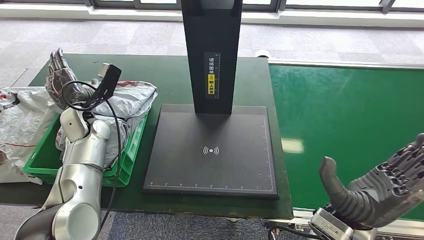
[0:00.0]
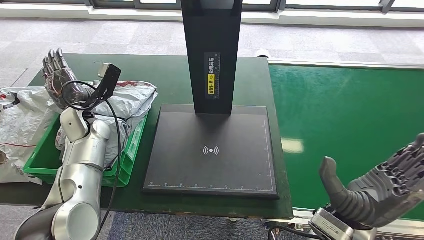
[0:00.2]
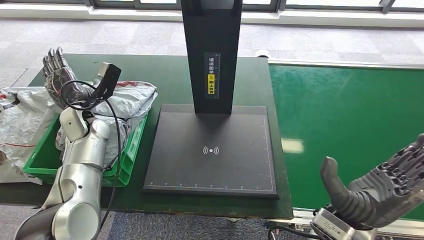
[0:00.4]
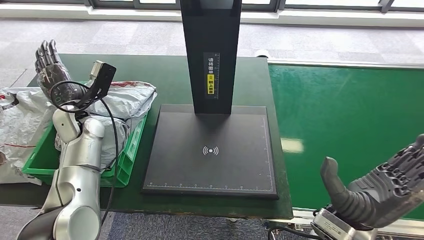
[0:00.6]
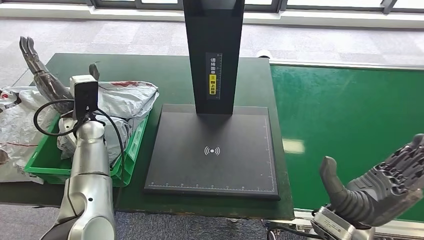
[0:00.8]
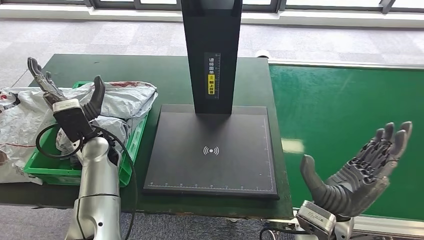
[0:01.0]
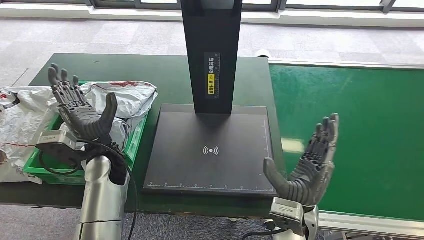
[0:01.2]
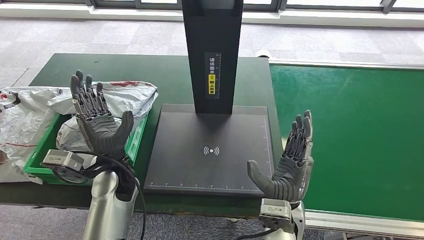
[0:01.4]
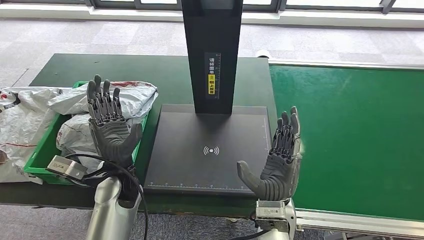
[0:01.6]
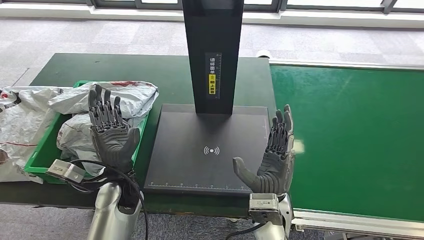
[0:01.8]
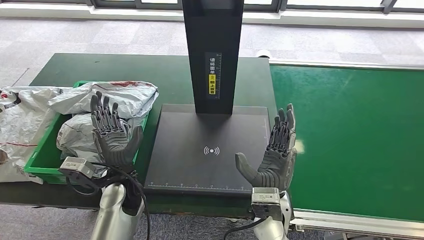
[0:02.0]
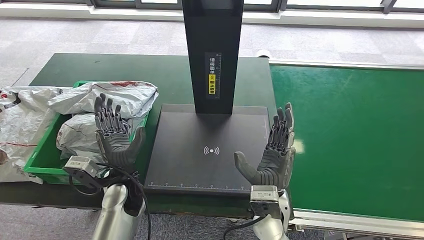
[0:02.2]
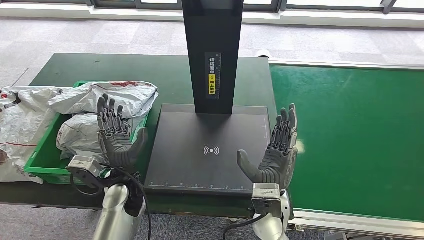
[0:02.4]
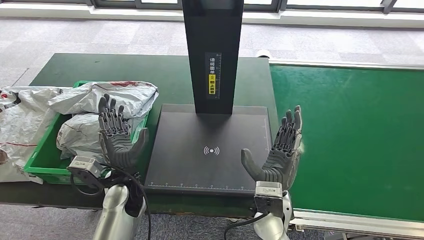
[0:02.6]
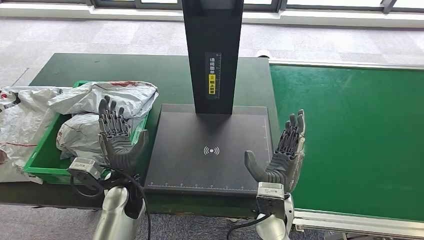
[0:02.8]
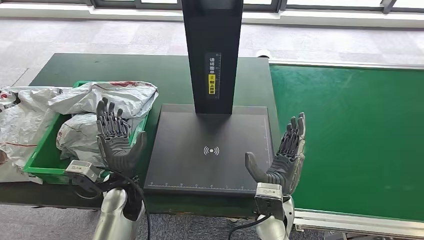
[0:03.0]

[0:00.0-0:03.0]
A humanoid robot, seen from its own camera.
Step, 0:00.0 to 0:02.8: Place the parcel into the delivery box.
0:00.0 to 0:01.6: The left hand travels backward and to the right by approximately 20 cm, while the right hand heads to the left, covering roughly 10 cm.
0:01.6 to 0:03.0: There are only small adjustments of the hands.

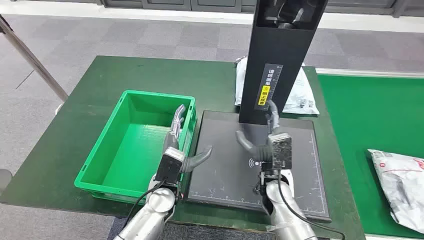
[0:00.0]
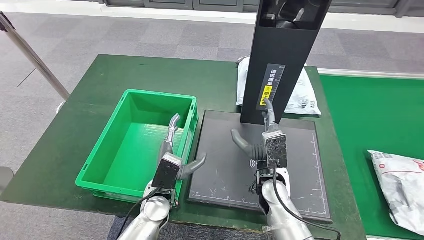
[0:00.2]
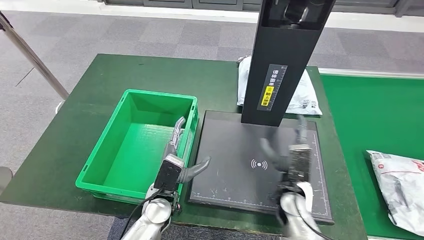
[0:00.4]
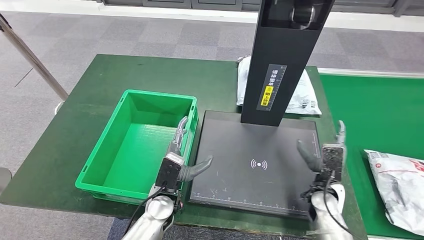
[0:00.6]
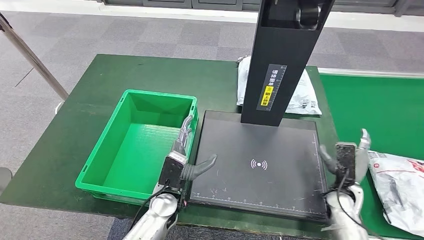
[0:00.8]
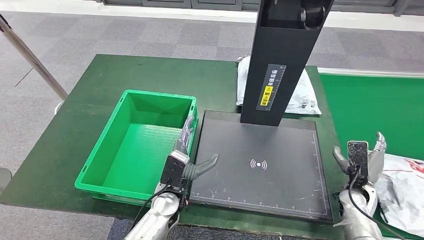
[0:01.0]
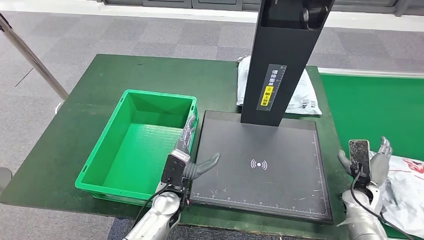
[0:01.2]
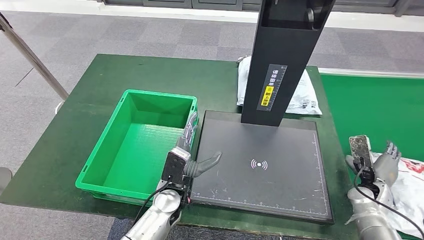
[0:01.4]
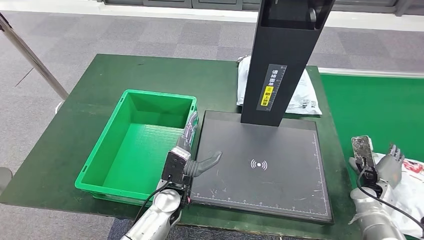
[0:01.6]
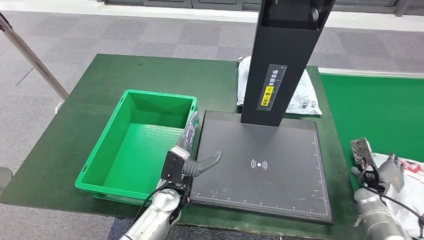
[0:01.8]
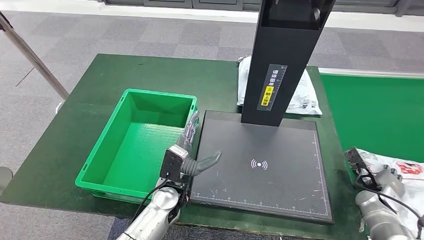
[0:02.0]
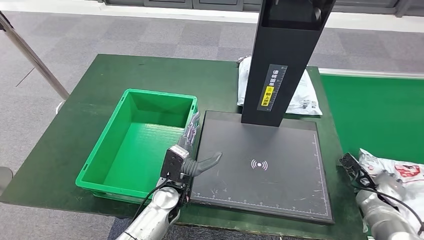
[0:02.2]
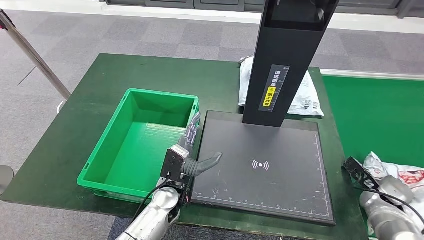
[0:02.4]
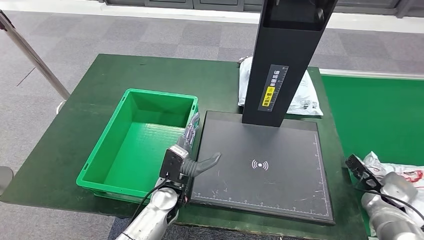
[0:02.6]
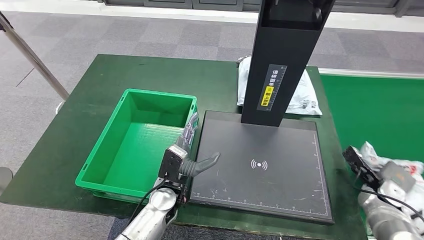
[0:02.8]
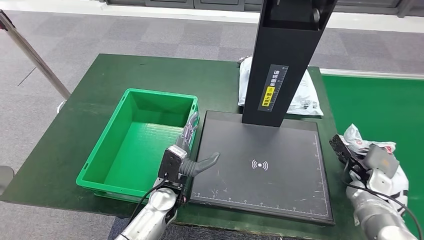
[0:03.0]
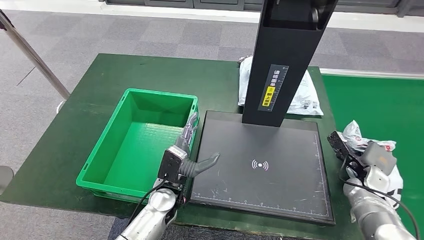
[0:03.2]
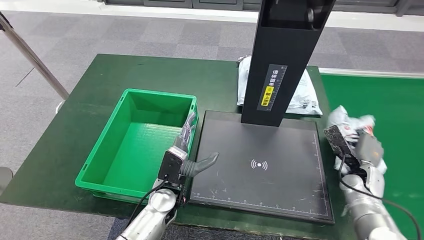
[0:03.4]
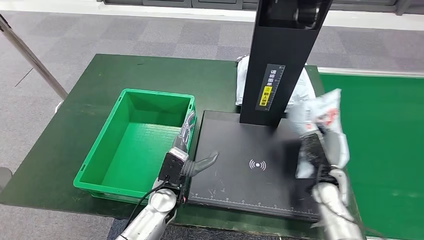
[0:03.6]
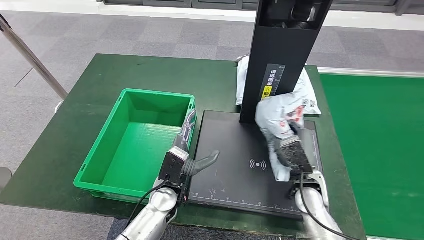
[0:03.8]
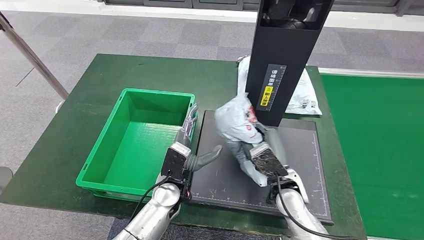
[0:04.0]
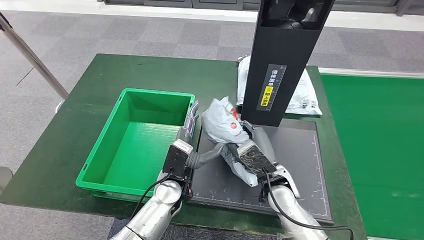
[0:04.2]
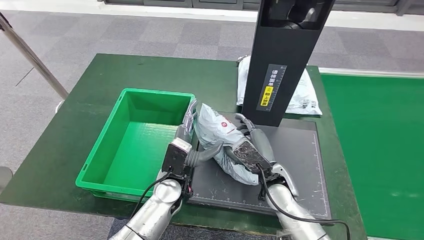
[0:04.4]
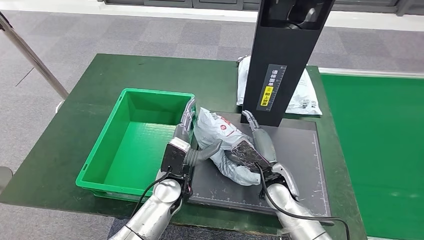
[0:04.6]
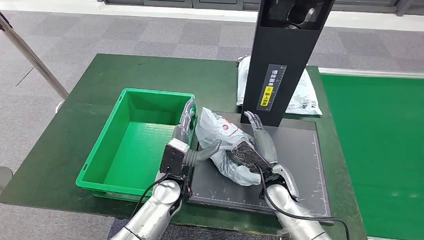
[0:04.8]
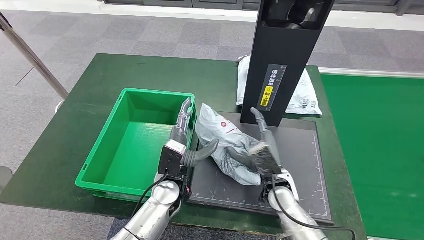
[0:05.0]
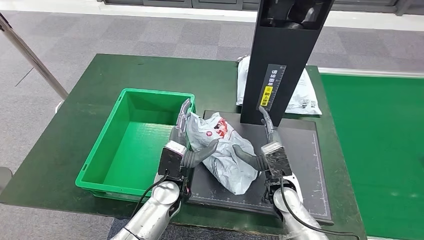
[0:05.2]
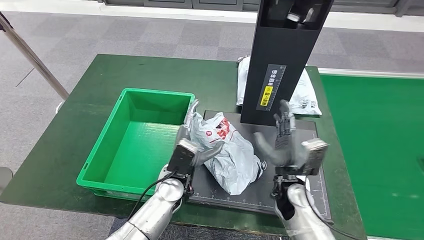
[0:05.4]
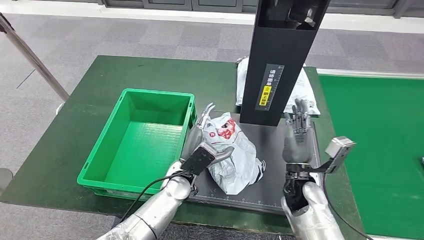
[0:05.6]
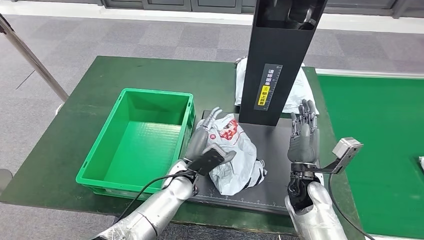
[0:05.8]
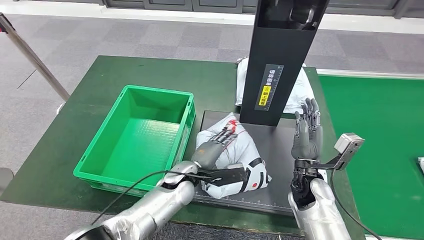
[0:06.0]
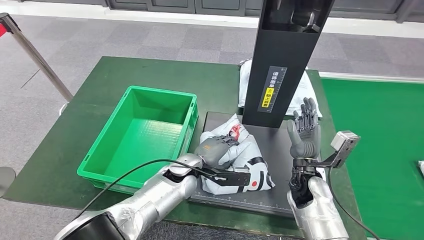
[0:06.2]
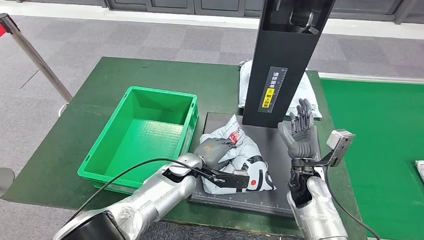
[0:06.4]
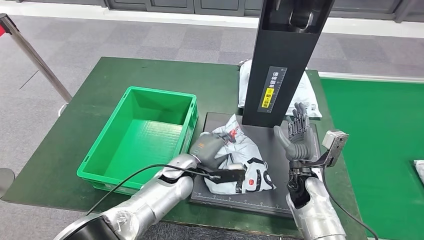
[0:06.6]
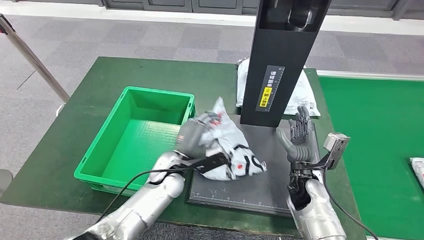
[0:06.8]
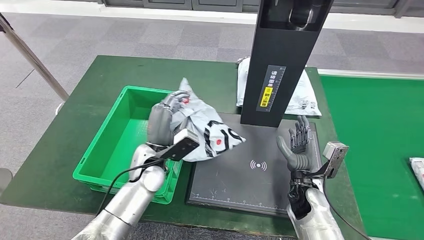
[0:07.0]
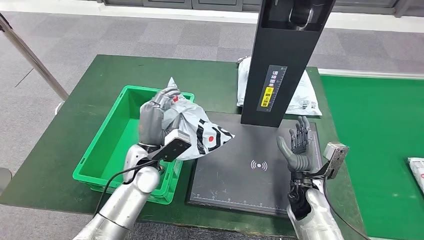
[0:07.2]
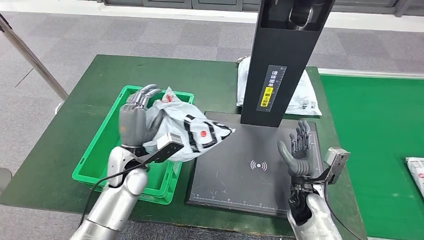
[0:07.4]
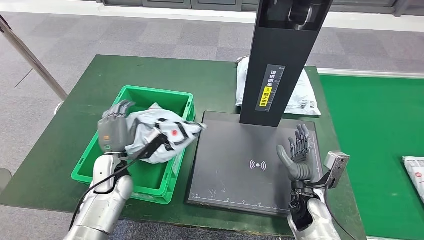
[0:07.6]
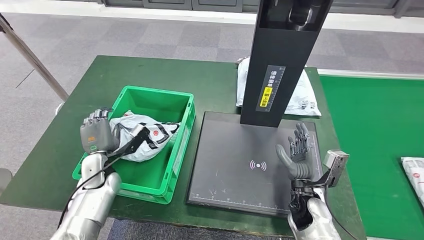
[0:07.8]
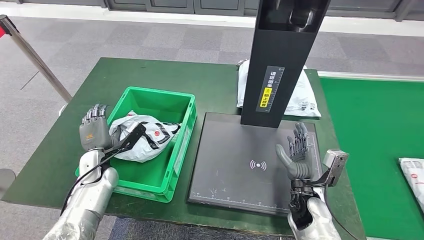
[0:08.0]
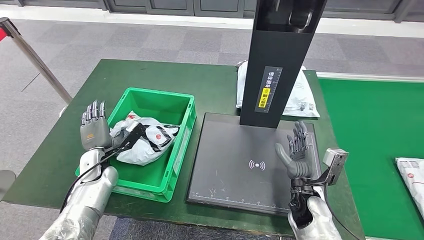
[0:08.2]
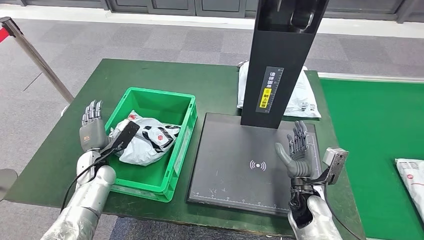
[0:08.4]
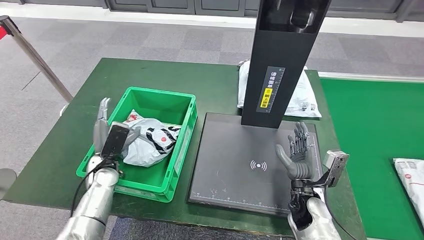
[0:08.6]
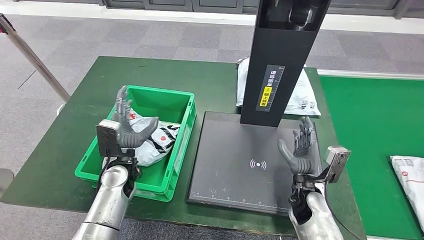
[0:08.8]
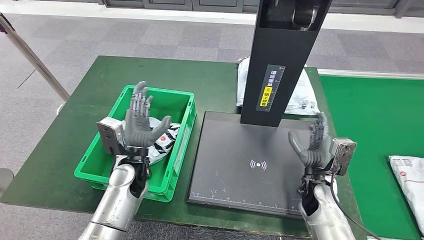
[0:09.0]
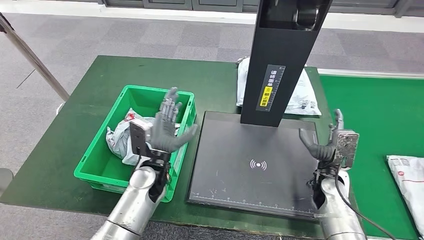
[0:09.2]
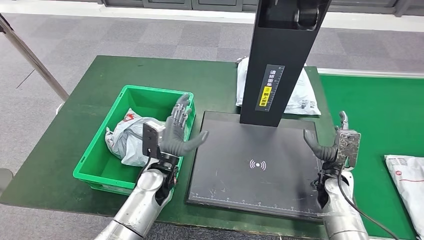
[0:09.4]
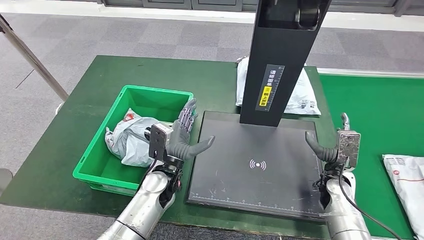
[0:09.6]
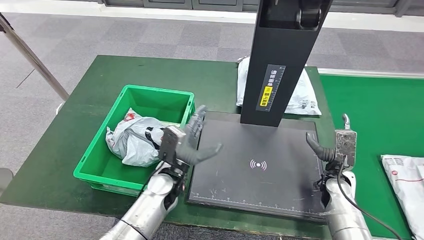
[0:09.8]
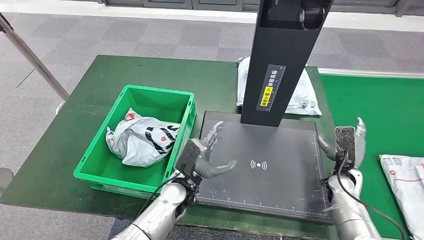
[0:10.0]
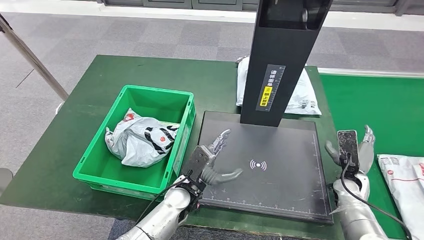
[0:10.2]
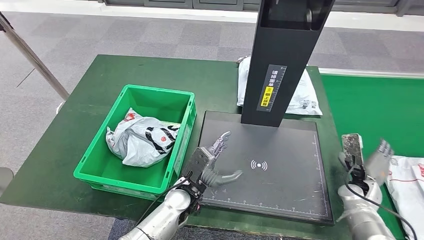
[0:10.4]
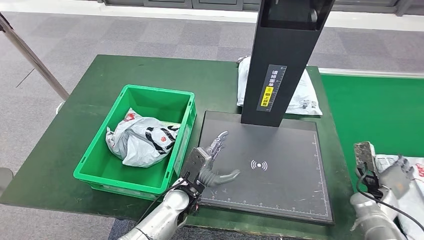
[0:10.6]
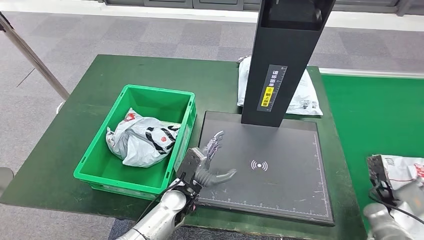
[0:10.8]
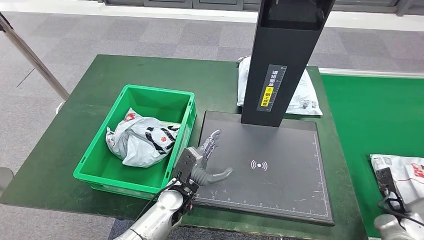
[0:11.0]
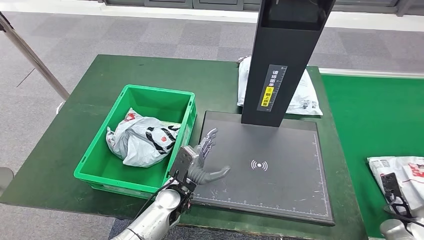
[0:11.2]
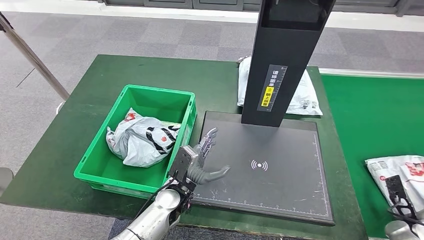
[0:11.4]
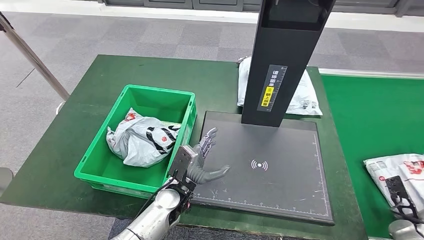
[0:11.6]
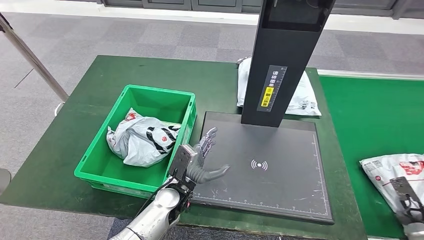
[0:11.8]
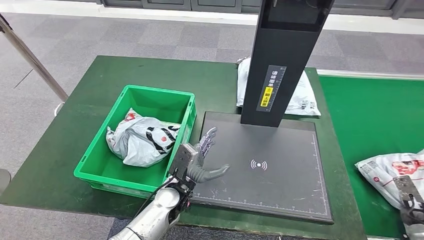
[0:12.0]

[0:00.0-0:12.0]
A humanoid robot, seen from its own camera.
Step, 0:00.0 to 0:03.0: Take the parcel off the conveyor belt.
Step, 0:03.2 to 0:05.2: Place the parcel onto the inbound machine.
Step, 0:05.4 to 0:07.0: Pick up the parcel from the inbound machine.
Step, 0:07.2 to 0:08.4: Put the parcel inside the courier box.
0:10.4 to 0:12.0: The right hand is displaced to the right and backward by approximately 15 cm.

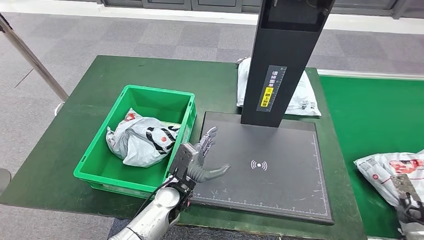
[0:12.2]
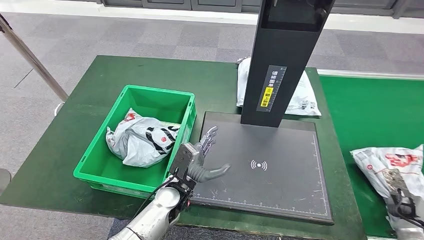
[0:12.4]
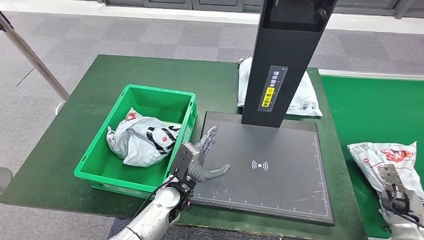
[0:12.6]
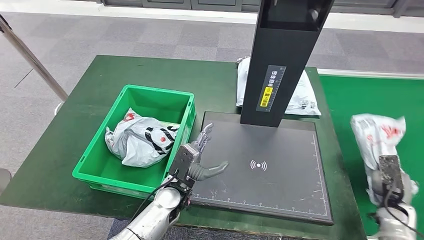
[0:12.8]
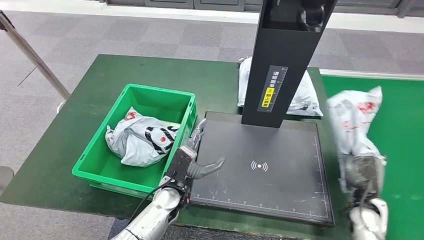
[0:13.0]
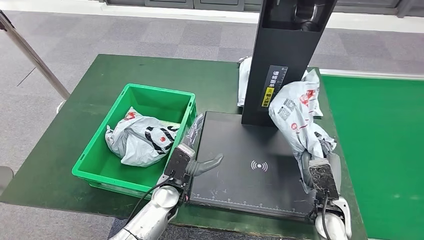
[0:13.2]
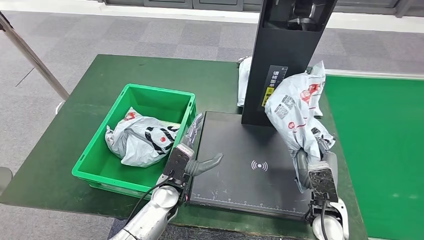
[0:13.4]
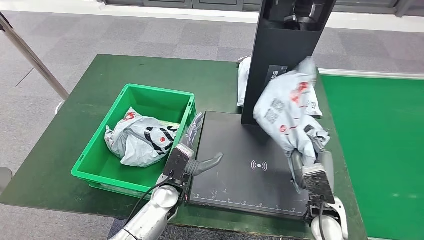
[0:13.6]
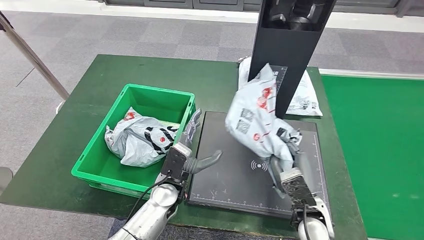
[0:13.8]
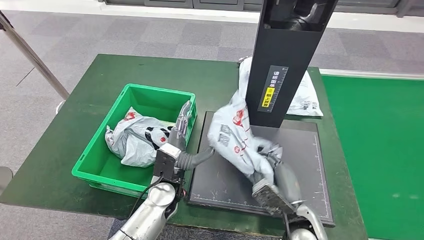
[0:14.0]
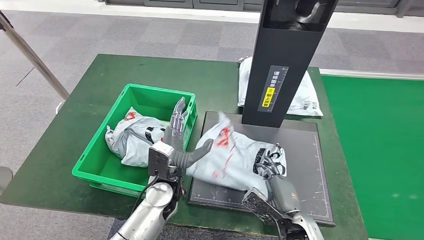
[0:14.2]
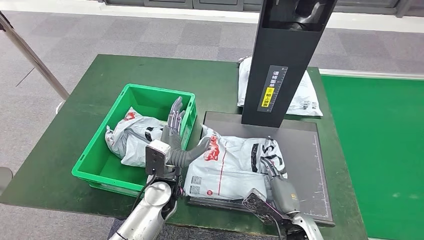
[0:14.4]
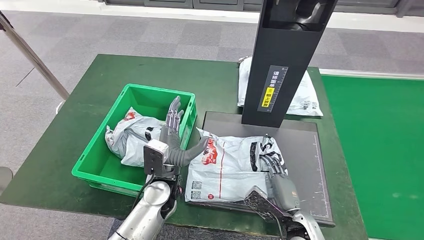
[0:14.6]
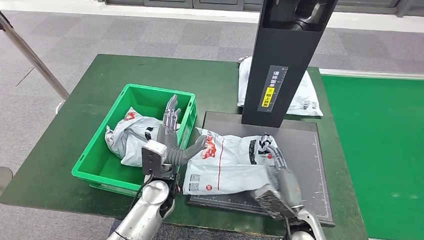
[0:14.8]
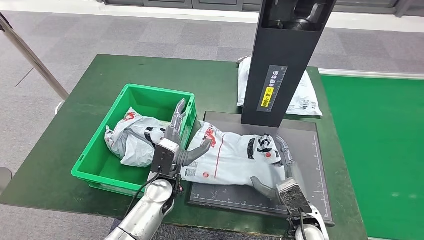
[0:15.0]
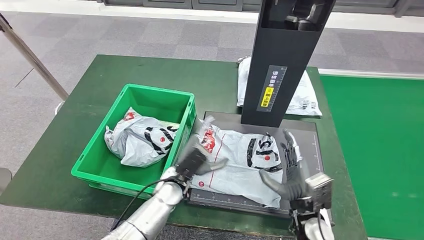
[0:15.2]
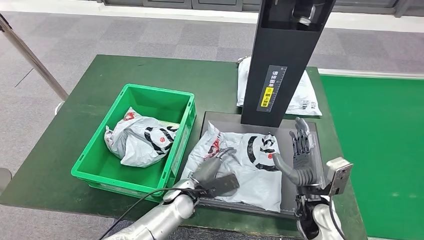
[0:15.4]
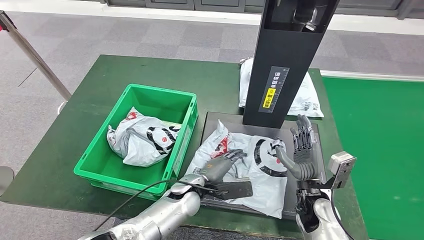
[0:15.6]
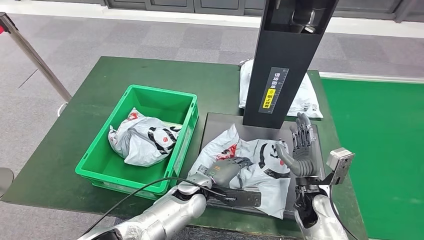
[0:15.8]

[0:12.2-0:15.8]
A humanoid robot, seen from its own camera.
Step, 0:13.2 to 0:14.6: Place the parcel onto the inbound machine.
